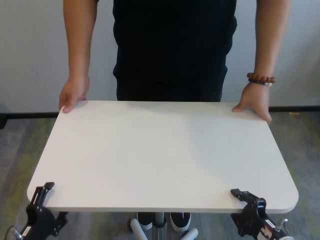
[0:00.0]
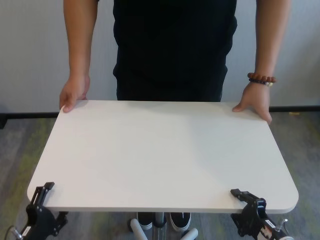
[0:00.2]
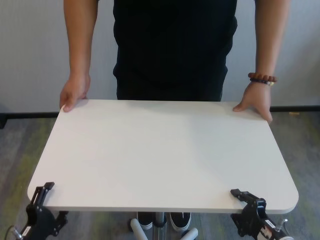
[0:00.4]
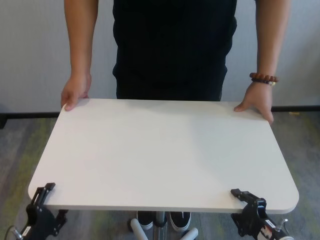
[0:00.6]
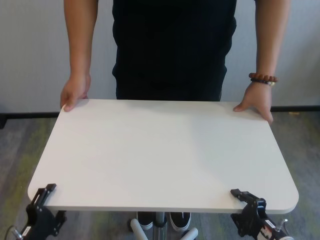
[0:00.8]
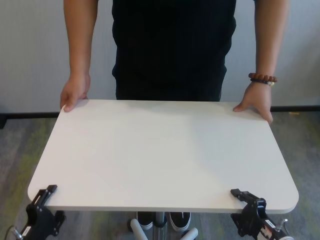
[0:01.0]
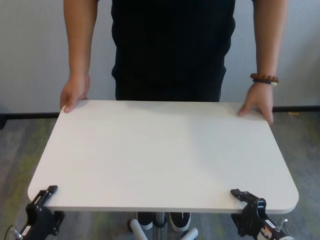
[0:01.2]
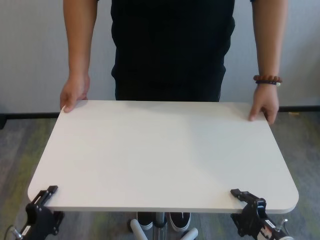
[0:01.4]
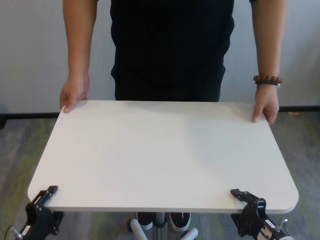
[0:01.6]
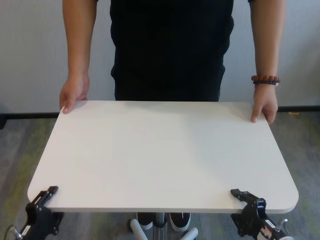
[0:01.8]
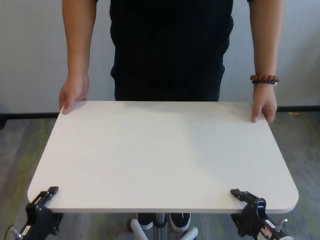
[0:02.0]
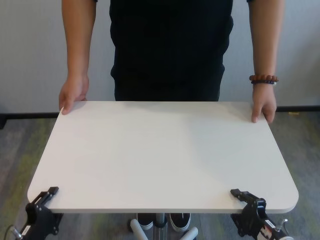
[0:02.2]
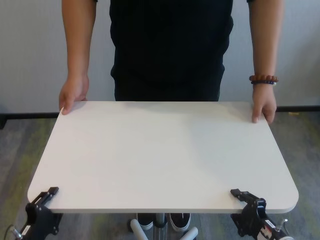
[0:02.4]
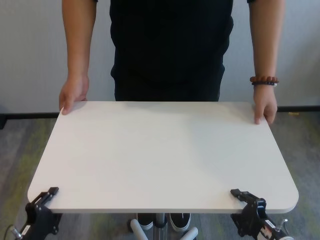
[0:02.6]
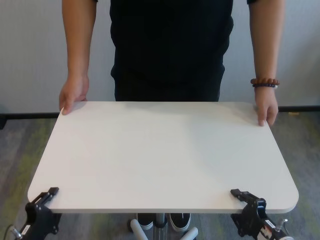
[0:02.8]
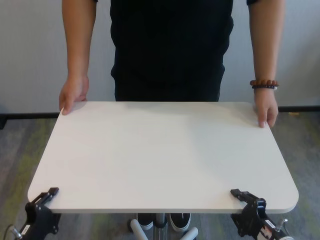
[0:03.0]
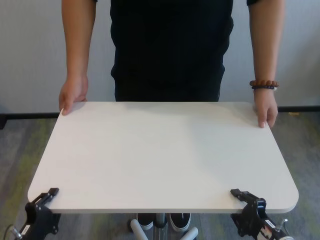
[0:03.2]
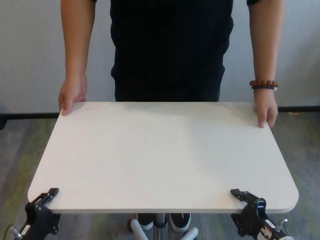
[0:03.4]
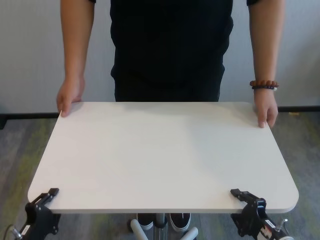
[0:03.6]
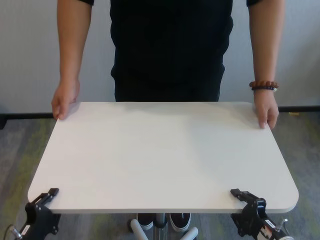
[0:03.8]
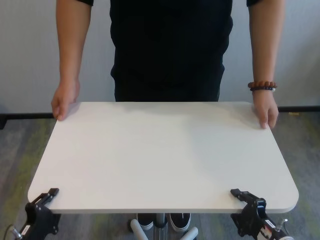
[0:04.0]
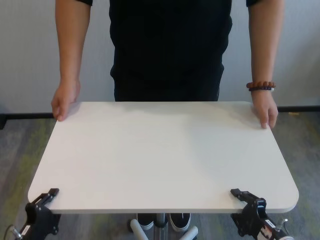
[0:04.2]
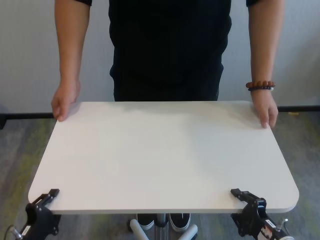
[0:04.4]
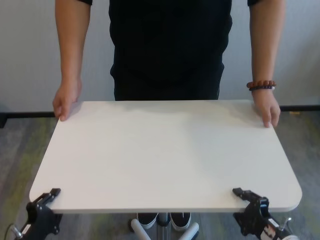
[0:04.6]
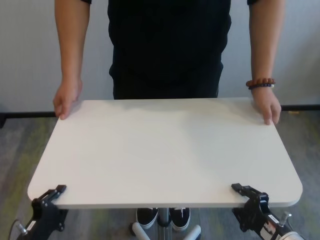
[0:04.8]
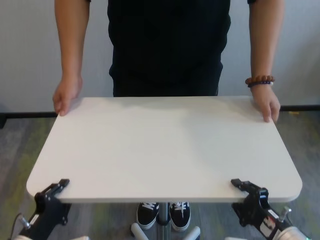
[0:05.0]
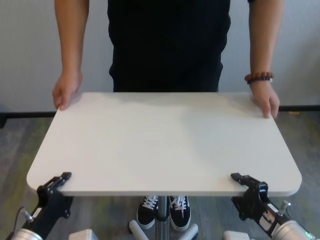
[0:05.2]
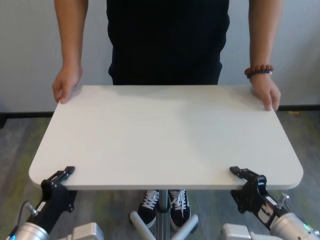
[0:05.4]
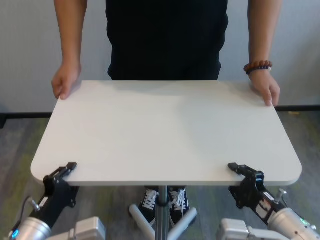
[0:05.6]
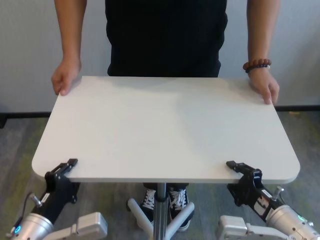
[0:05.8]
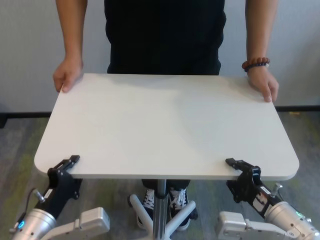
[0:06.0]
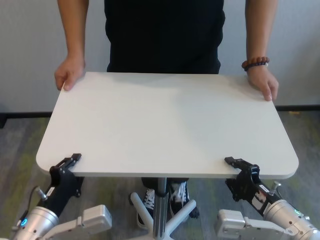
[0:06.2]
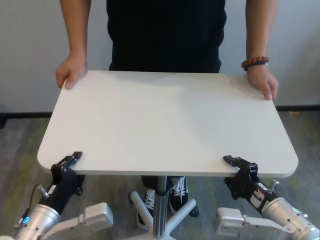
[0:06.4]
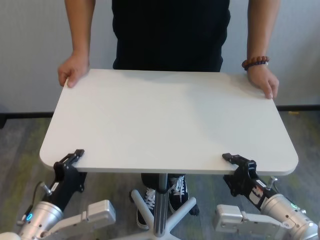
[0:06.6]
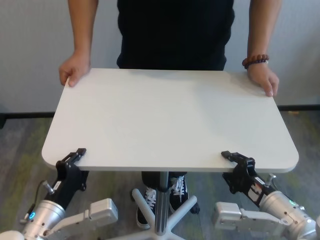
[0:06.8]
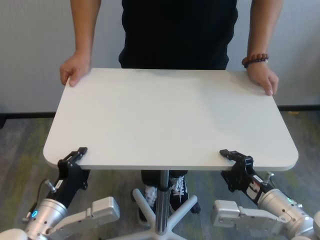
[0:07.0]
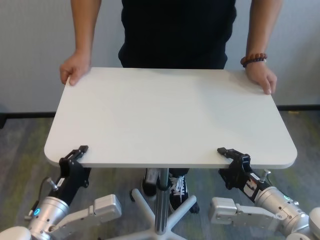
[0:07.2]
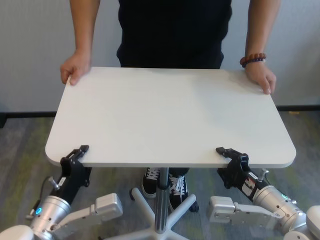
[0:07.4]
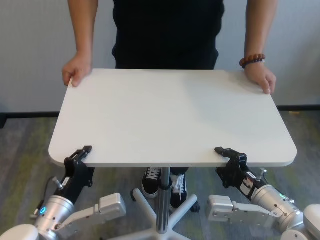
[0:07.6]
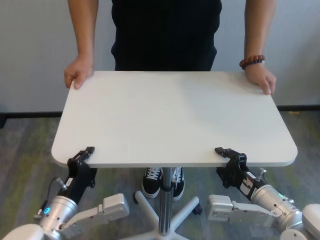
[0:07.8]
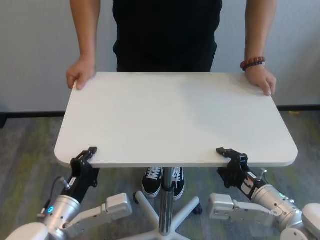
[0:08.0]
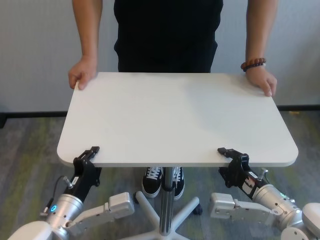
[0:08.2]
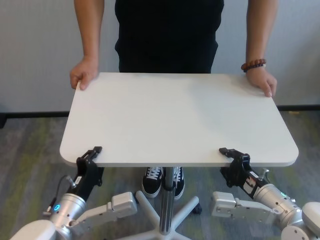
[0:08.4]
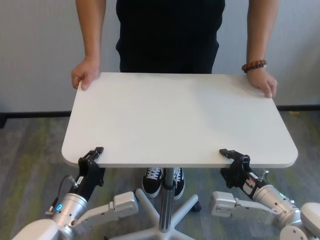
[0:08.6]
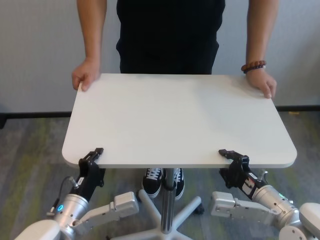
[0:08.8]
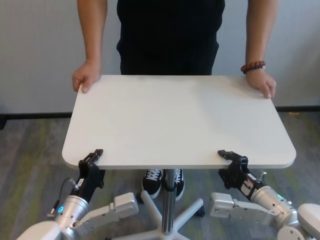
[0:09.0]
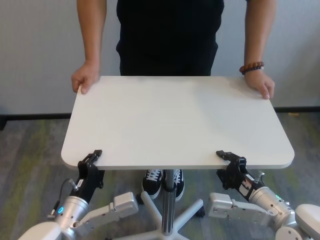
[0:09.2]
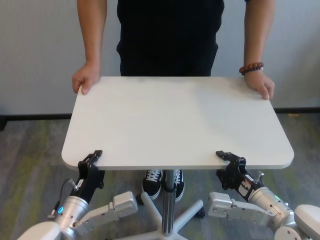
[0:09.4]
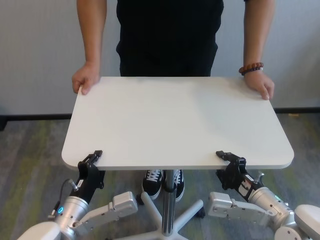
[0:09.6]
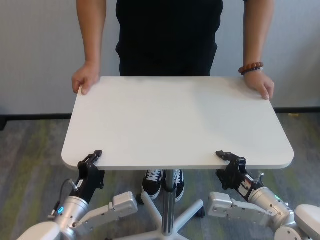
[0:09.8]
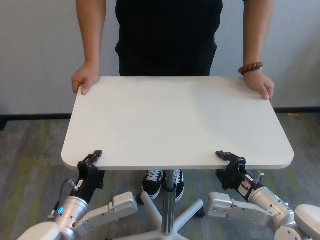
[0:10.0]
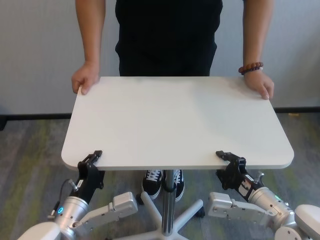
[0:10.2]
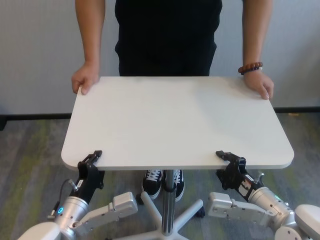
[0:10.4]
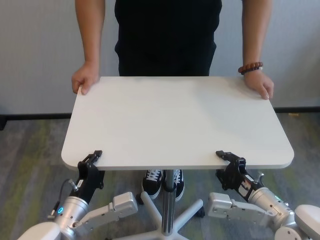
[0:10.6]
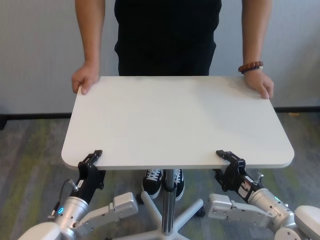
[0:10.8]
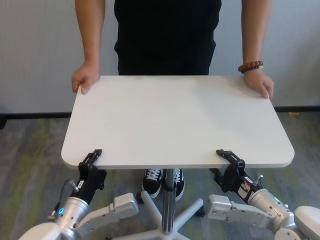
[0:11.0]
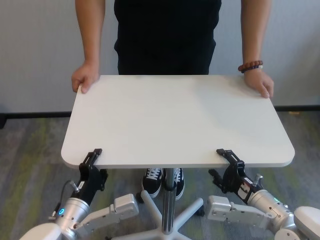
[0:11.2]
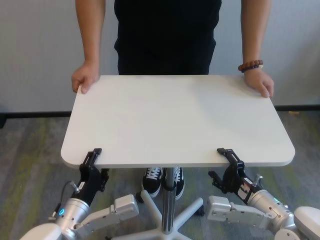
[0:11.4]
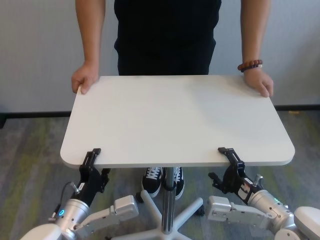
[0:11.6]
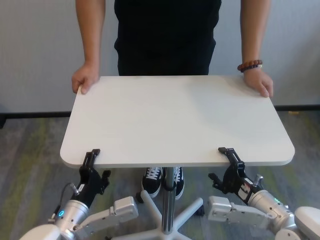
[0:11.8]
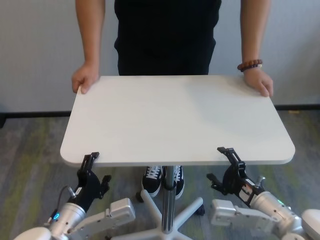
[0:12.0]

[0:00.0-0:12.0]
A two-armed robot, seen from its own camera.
Task of the whole recording: human machine collaborative table moving.
Step, 0:00.0 to 0:04.0: Grasp the table with both grippers.
Step, 0:04.2 to 0:12.0: Move the table forward with both grippers.
